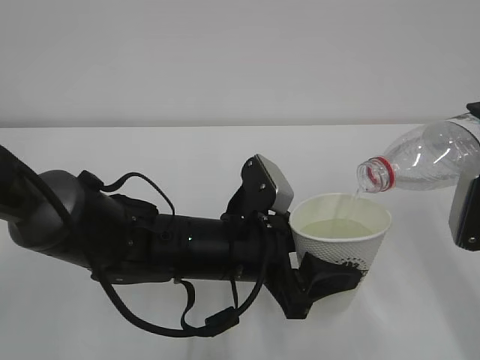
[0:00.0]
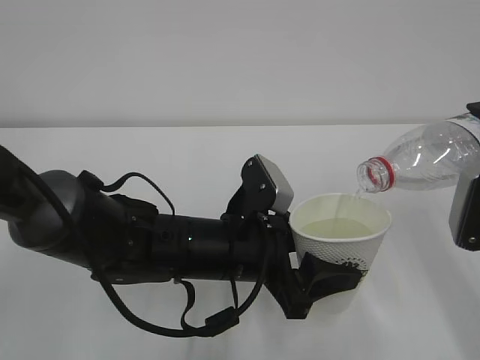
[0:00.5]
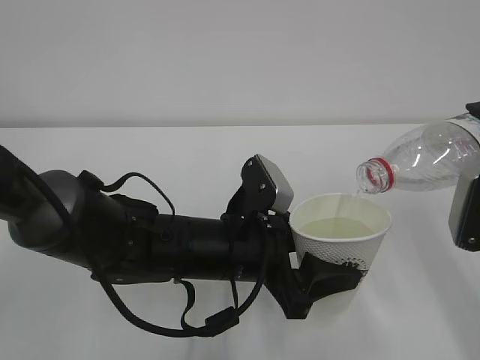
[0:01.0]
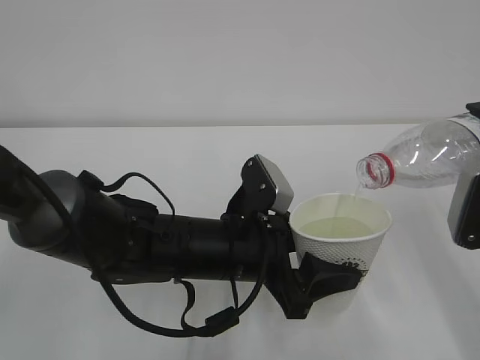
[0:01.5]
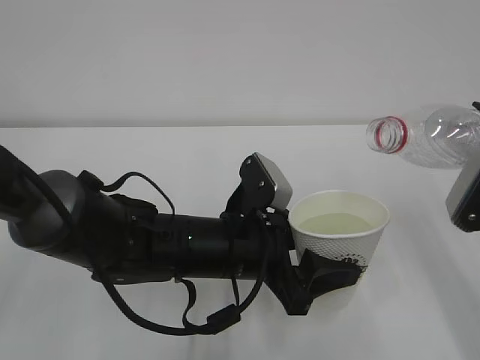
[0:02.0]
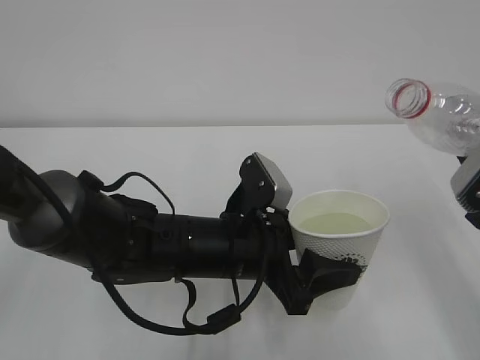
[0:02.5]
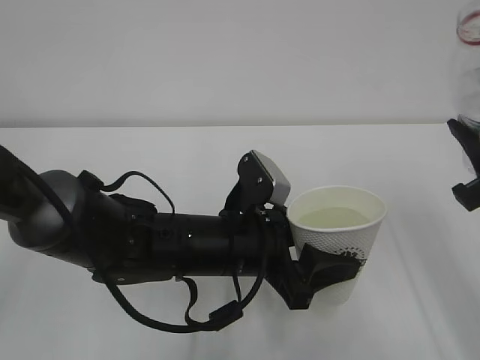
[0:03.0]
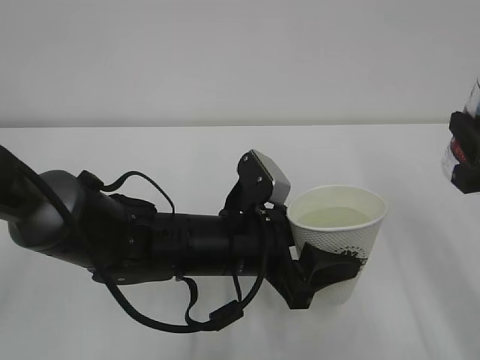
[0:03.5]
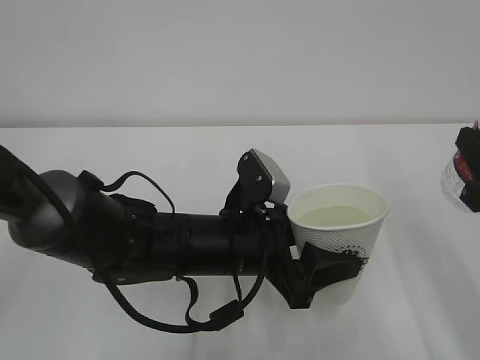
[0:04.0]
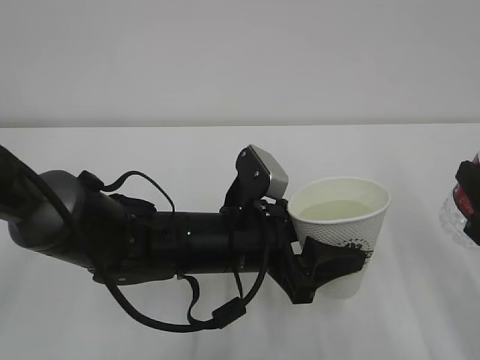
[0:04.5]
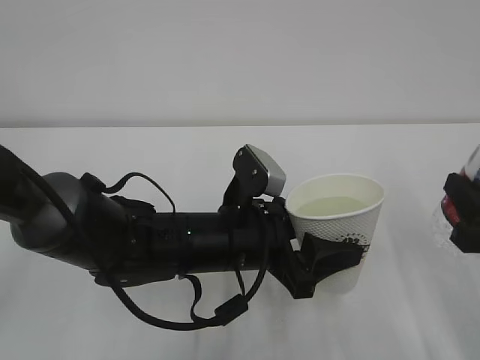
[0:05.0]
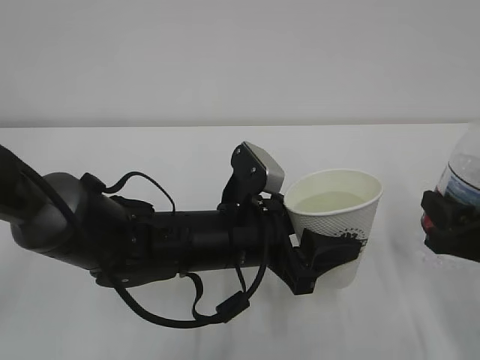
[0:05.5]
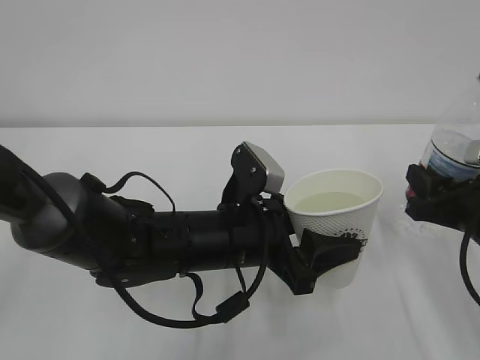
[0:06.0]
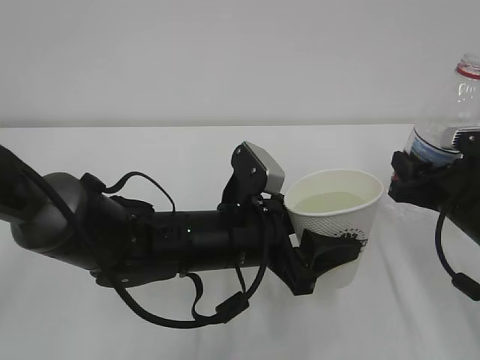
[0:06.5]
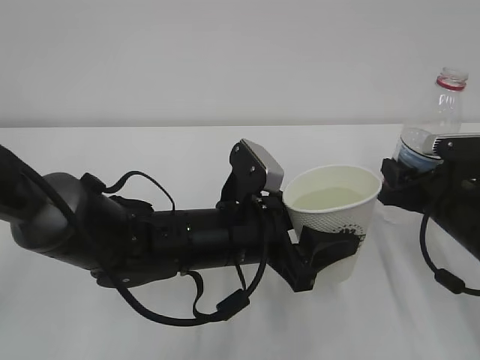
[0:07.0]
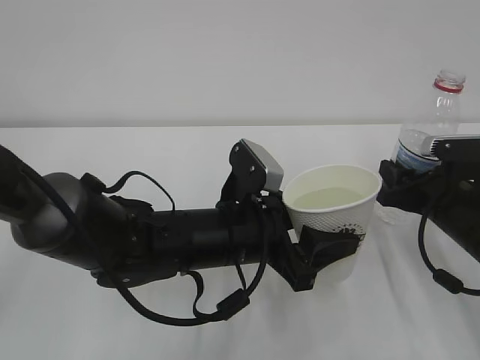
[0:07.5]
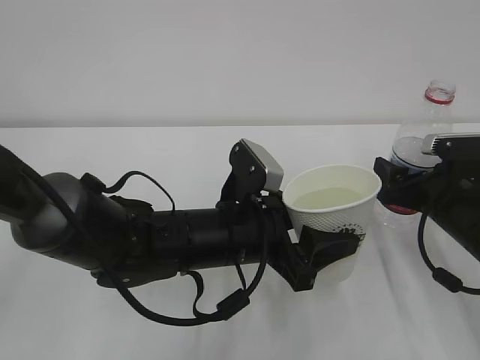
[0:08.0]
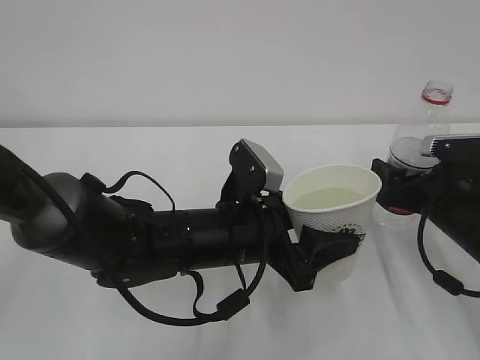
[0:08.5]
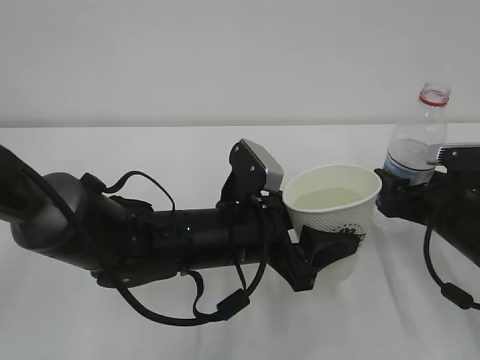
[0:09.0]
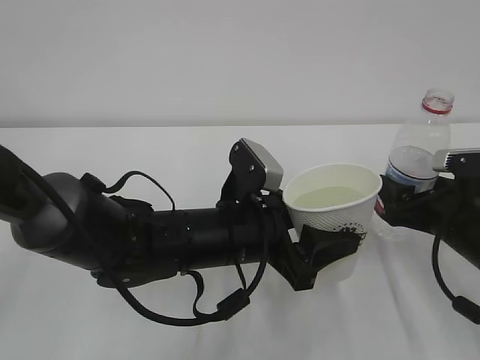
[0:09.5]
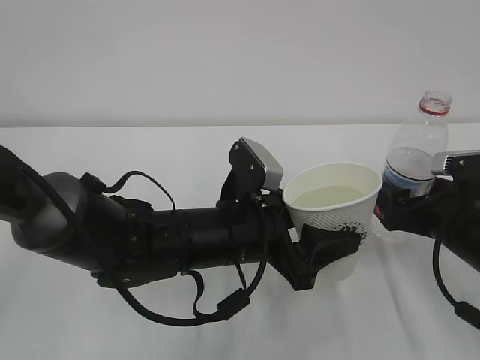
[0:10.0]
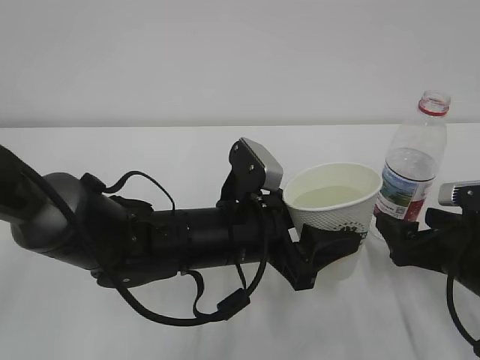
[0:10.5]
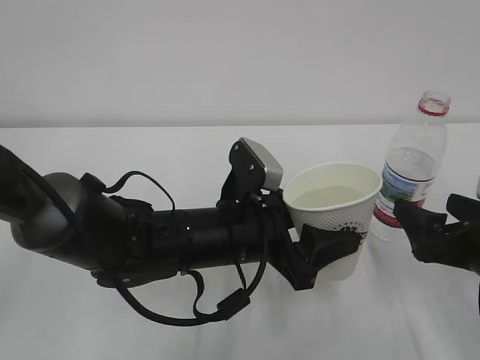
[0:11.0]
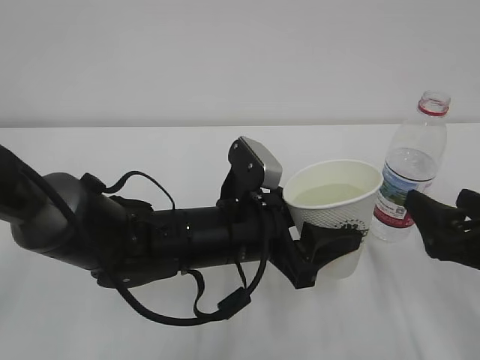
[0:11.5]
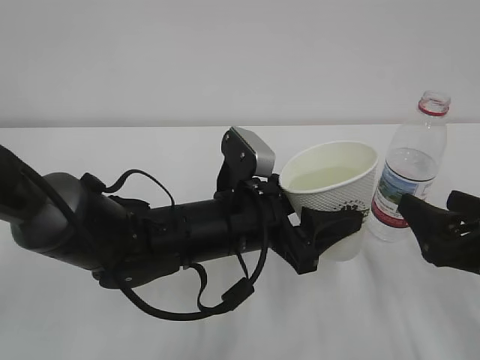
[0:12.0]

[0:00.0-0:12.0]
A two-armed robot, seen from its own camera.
0:00.0 to 0:02.0: There are only small adjustments of the grippers.
0:04.0 to 0:06.0: The right gripper goes about 10 cm downward and forward.
0:06.0 to 0:08.0: The right gripper is displaced forward by some 5 cm, and opens its fingers.
0:08.0 to 0:10.0: There are only small adjustments of the grippers.
0:10.0 to 0:12.0: The right gripper heads backward, covering roughly 10 cm.

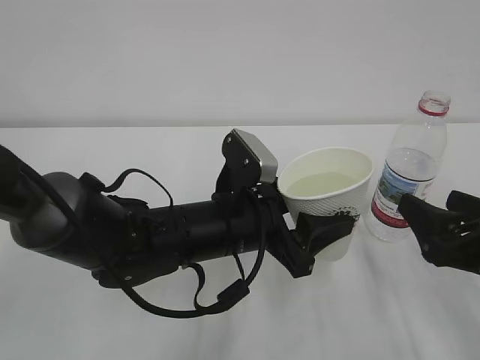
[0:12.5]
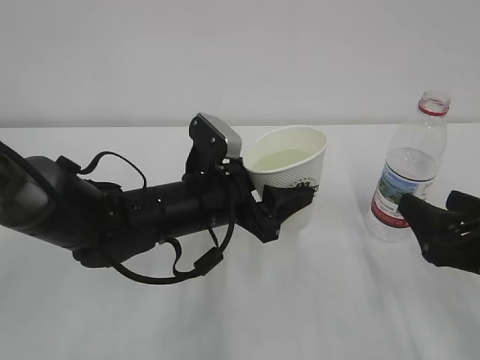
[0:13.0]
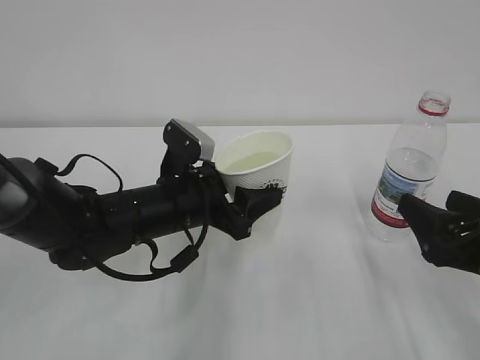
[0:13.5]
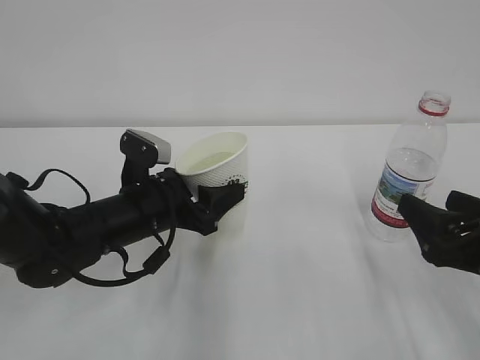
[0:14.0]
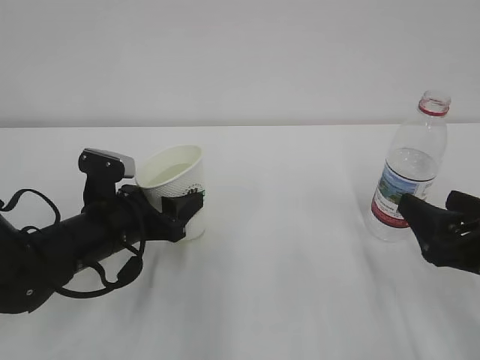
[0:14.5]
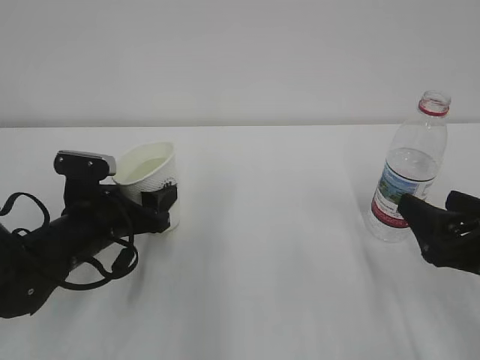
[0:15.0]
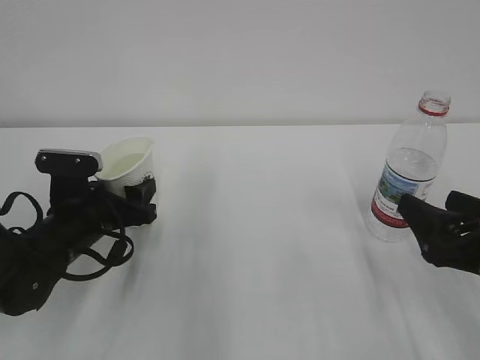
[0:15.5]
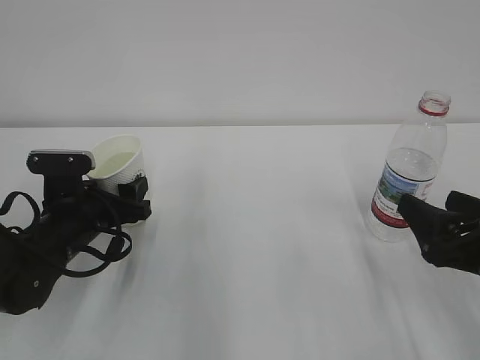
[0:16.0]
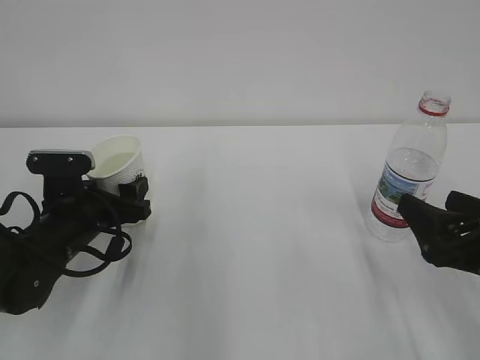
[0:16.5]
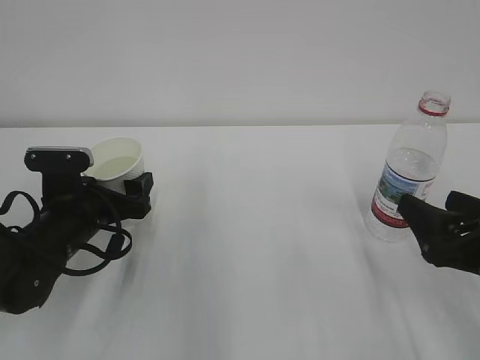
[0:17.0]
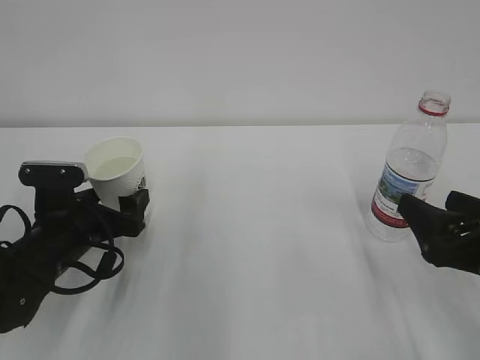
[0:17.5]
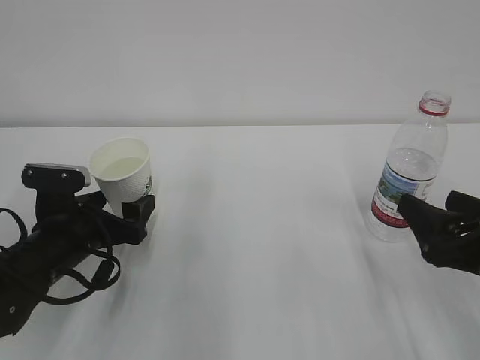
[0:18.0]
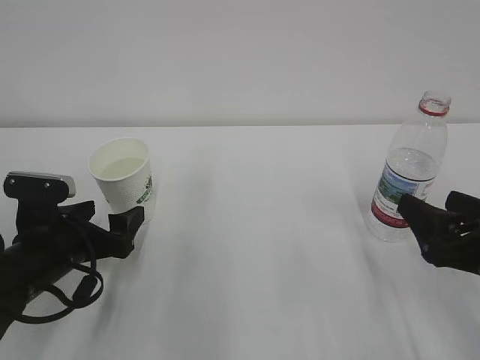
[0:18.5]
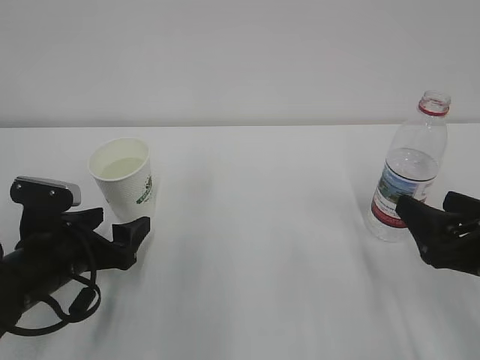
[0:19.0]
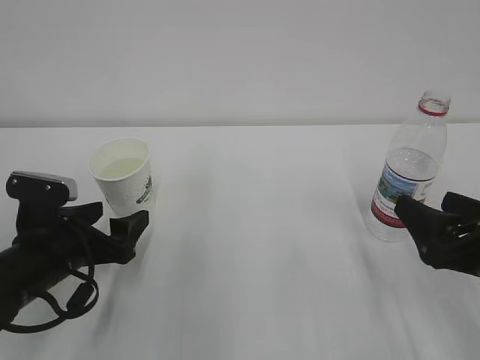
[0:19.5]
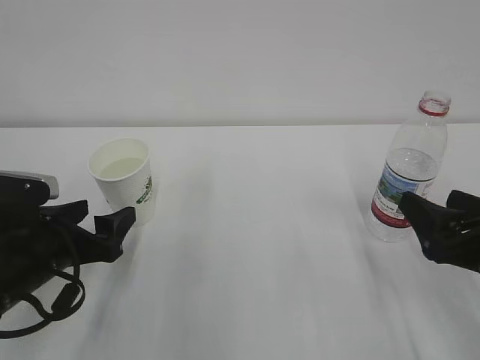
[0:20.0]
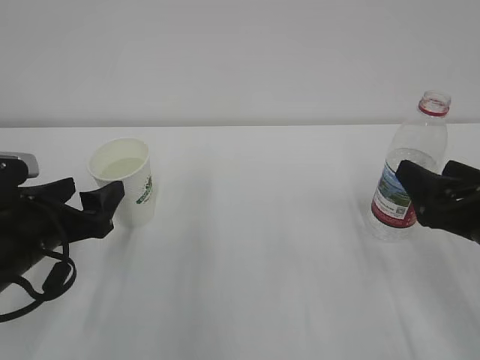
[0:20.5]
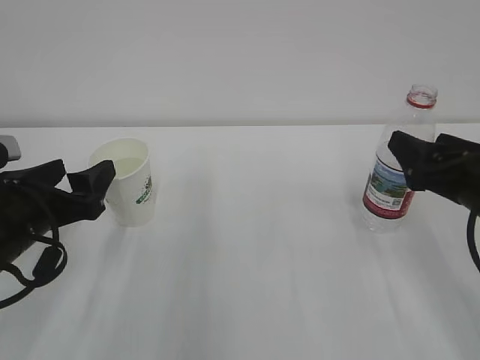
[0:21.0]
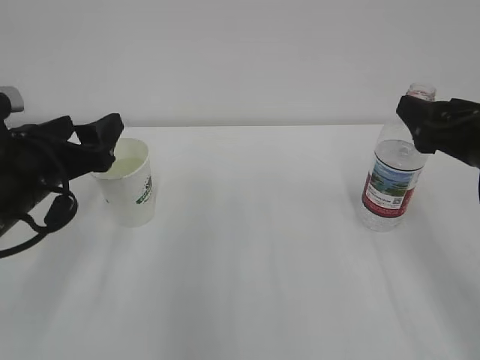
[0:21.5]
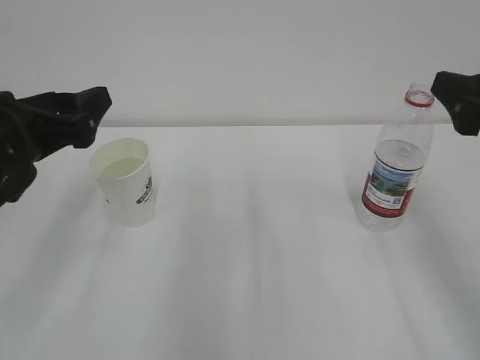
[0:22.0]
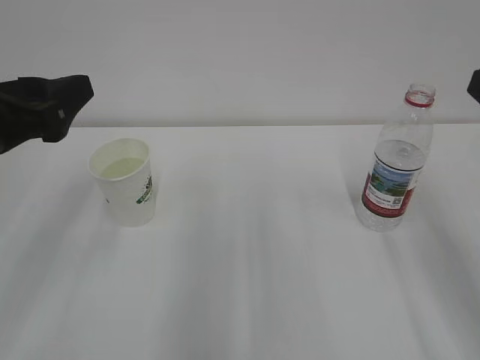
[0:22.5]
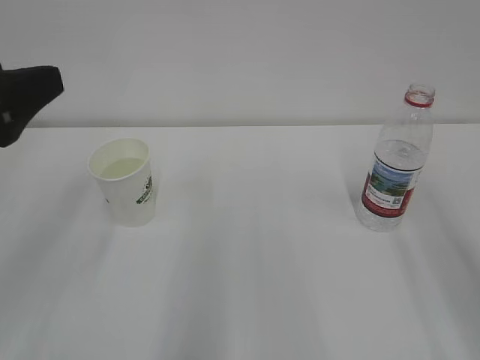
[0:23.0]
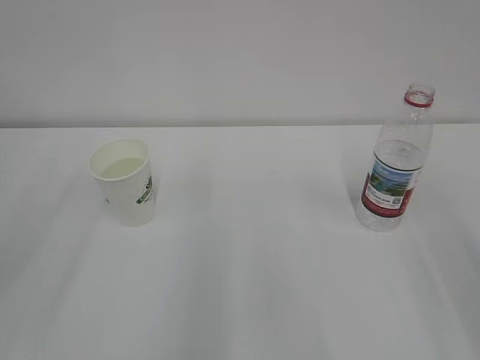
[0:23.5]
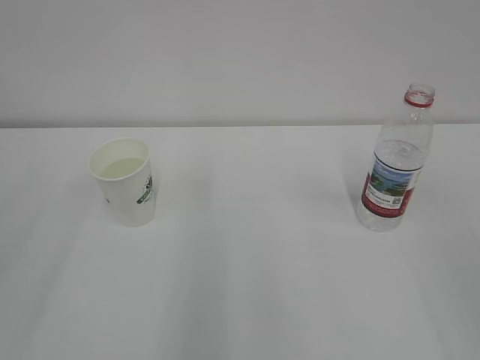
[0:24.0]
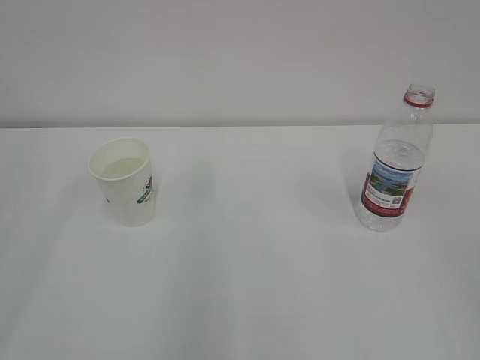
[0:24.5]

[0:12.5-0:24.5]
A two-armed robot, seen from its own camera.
0:12.5 to 0:14.5: The left gripper shifts some 15 cm to the left.
0:16.5 to 0:18.5: The left gripper opens its fingers.
0:18.5 to 0:20.5: The grippers stay close to where they were, moving slightly.
0:20.5 to 0:22.5: Both grippers travel together upward, some 15 cm.
0:22.5 to 0:24.5: The left gripper shifts some 20 cm backward, upward and to the left.
